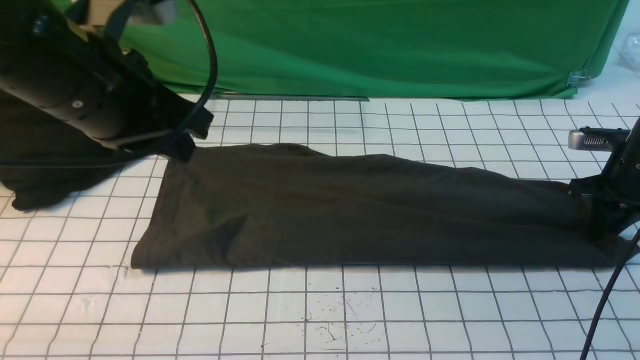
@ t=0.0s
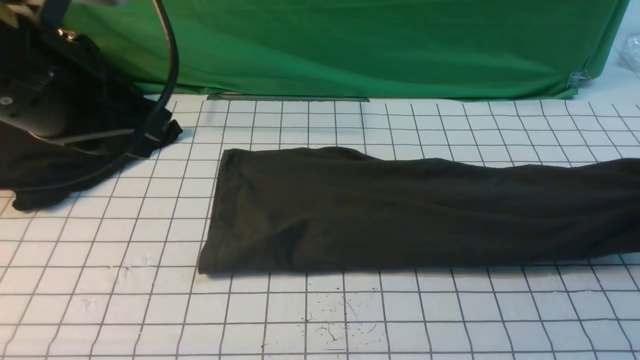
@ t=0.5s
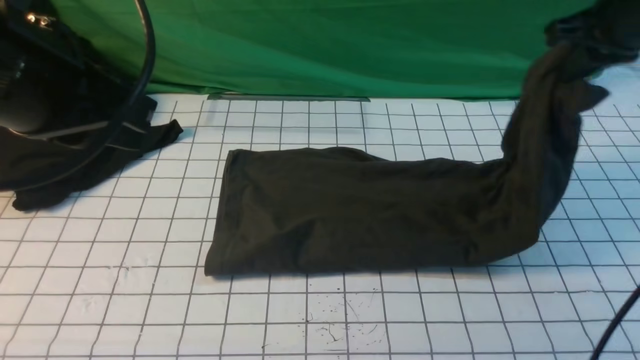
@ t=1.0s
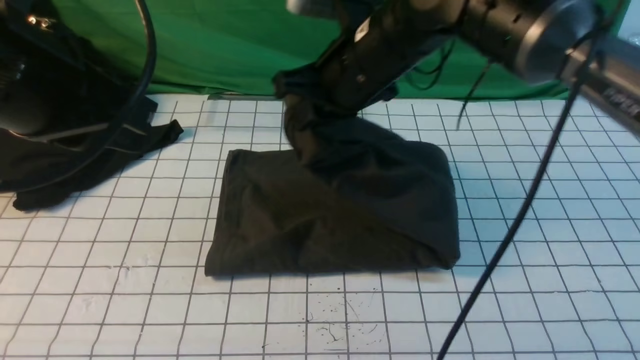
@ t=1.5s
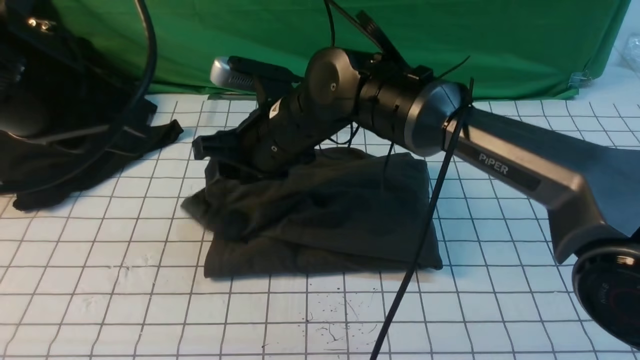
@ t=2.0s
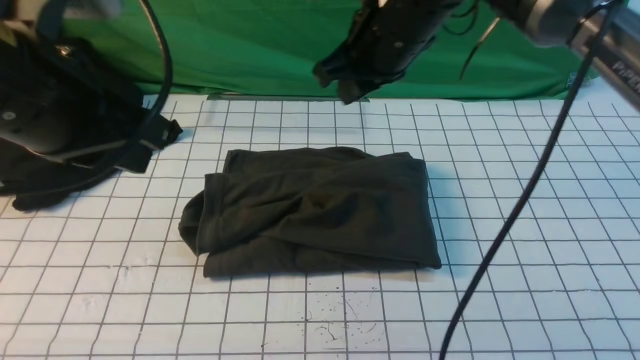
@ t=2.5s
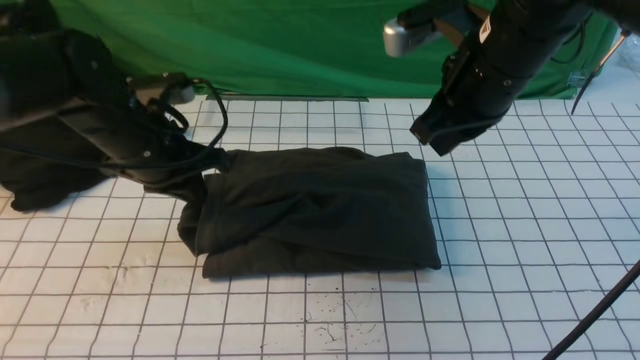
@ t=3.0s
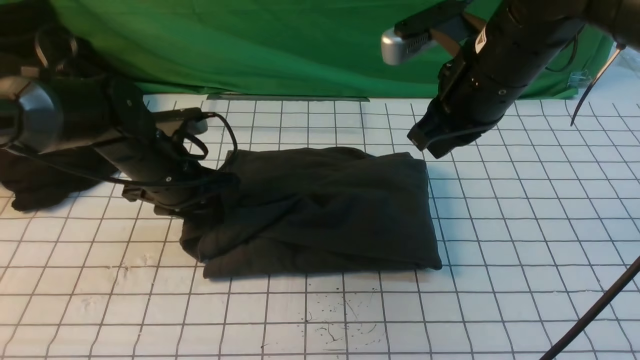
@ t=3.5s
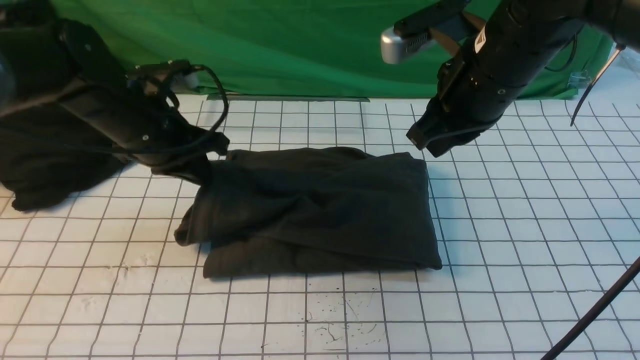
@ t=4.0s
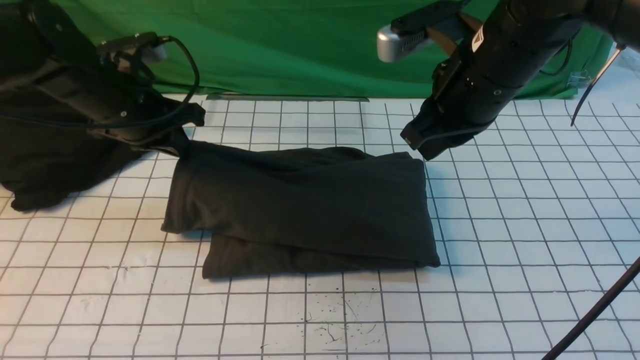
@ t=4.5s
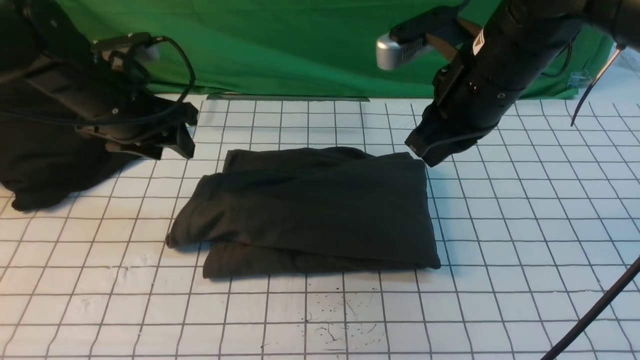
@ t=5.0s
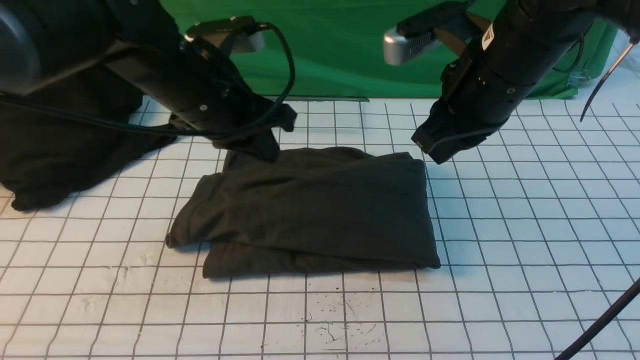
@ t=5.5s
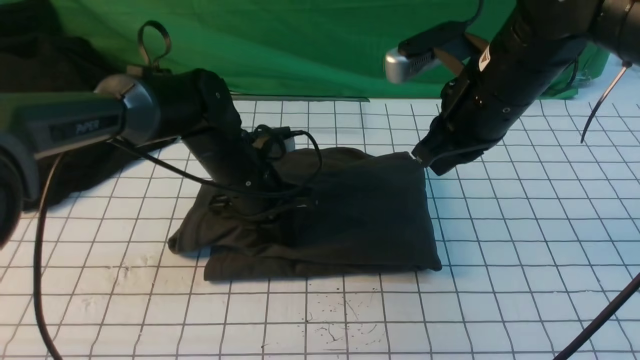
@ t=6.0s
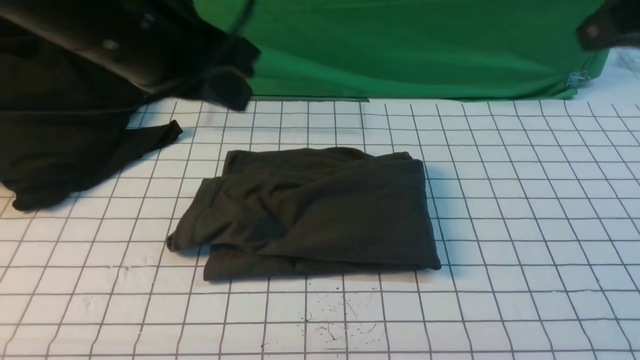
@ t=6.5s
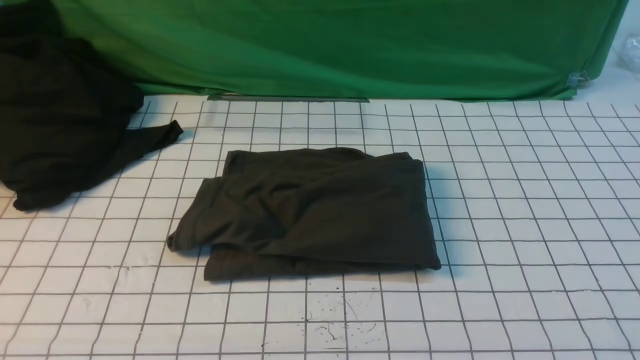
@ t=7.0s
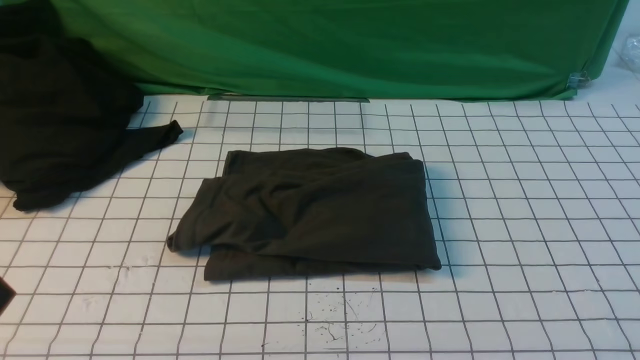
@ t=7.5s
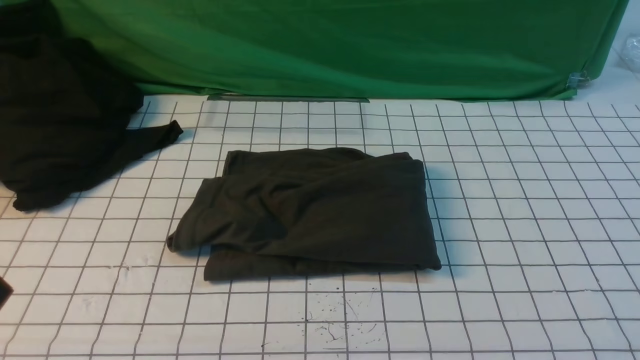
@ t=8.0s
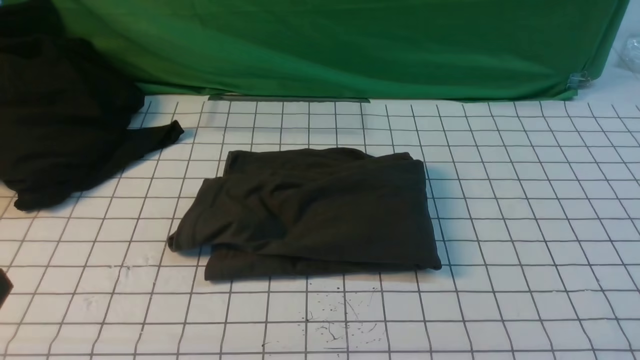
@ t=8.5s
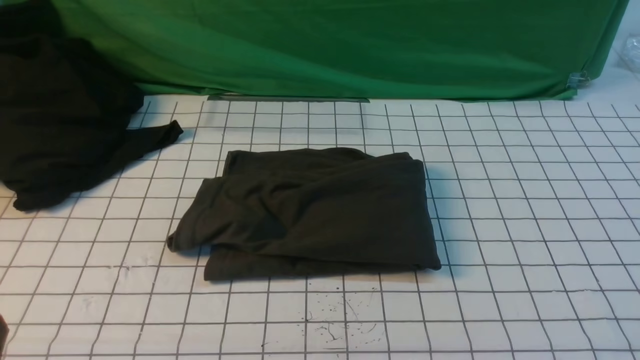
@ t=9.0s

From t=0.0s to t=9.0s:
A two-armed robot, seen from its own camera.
Step, from t=1.0s to t=2.0s: use the right arm to drag the right edge of the fabric to the left and folds it over the left edge.
From t=0.0s to t=2.0s: The right gripper goes some 40 cm to the left; the left gripper is displaced backward by about 5 cm.
From t=2.0s to t=4.5s: The left gripper travels forward and downward by some 25 cm, and opens, then closes again, while the right gripper travels to the right and upward by roughly 20 cm, and closes up.
From t=4.5s to t=7.0s: The right gripper moves backward and to the right, roughly 35 cm; the left gripper travels backward by roughly 40 cm, and opens, then closes again.

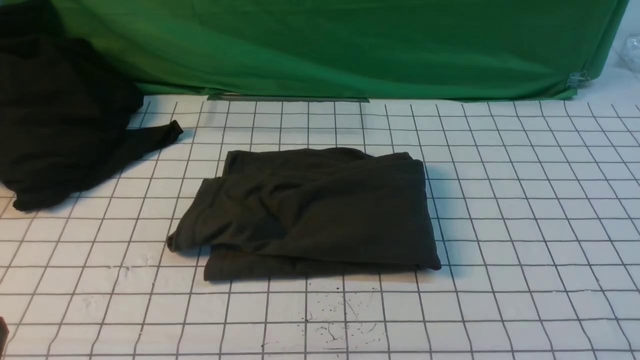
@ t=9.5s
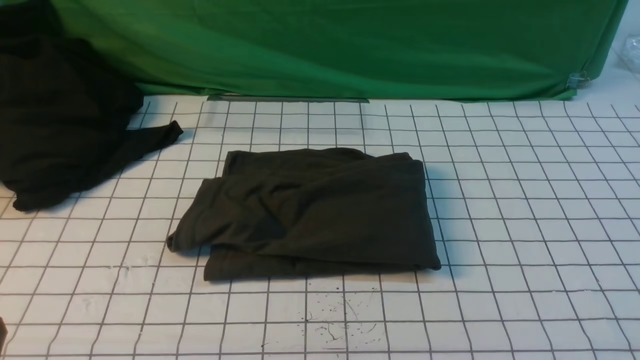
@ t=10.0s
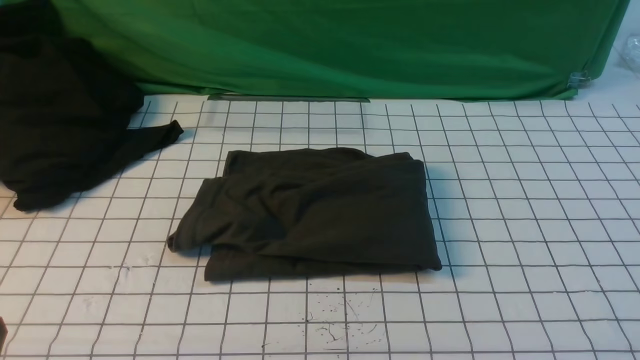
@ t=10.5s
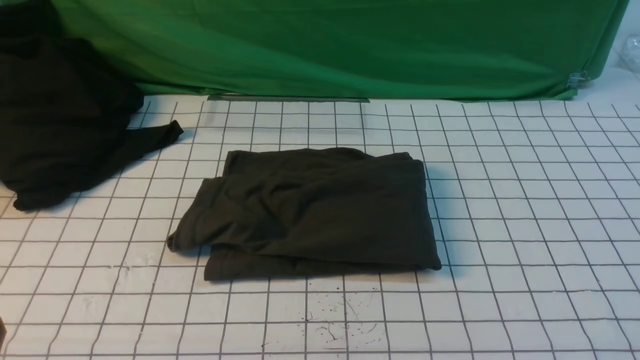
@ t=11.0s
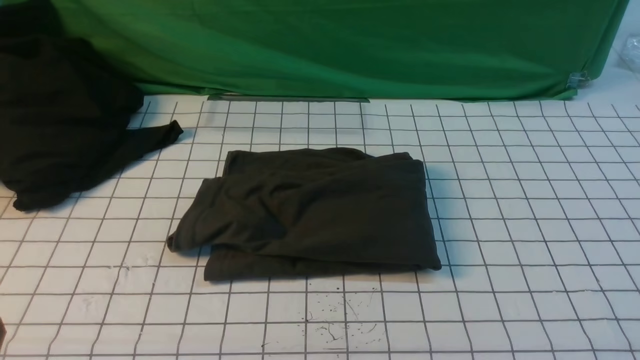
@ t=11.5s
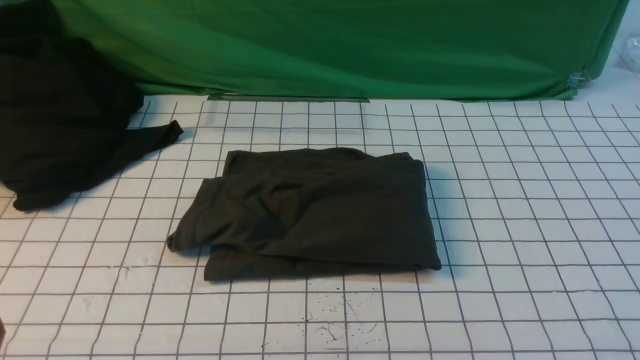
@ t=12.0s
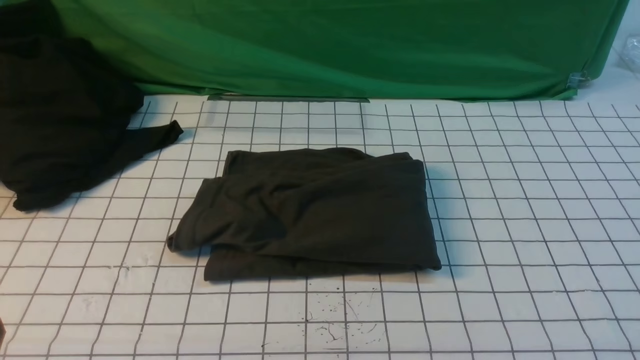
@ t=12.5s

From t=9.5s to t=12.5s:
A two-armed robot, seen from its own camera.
From t=11.0s to t=12.5s: The two grippers keep their place.
